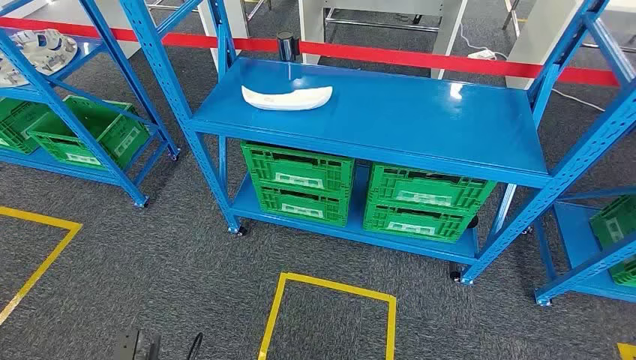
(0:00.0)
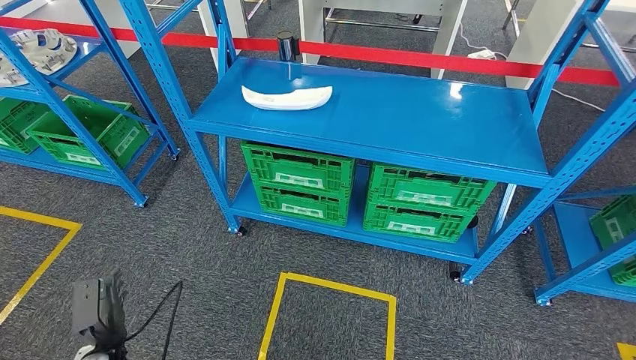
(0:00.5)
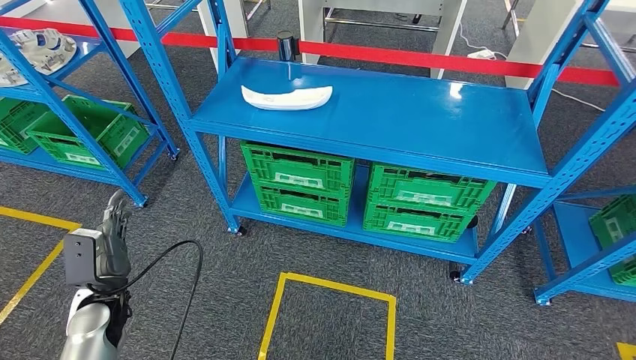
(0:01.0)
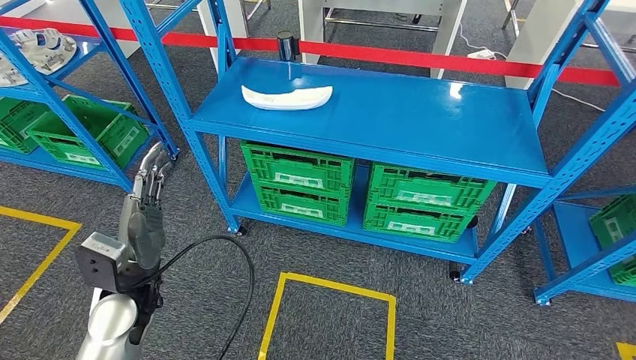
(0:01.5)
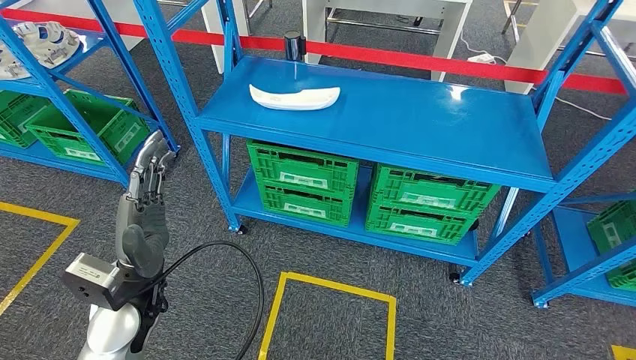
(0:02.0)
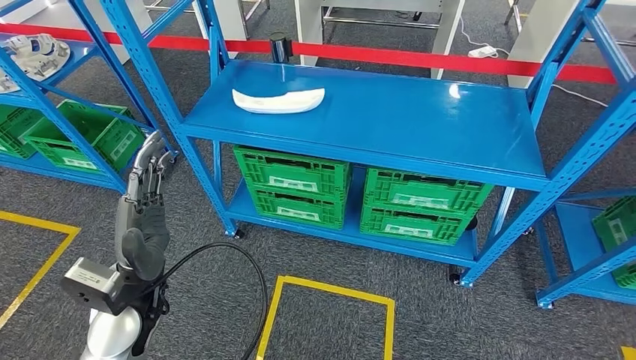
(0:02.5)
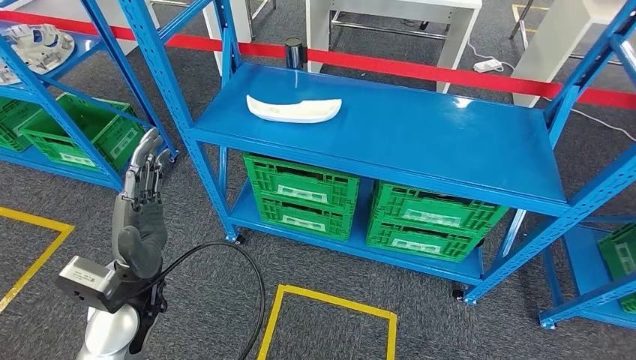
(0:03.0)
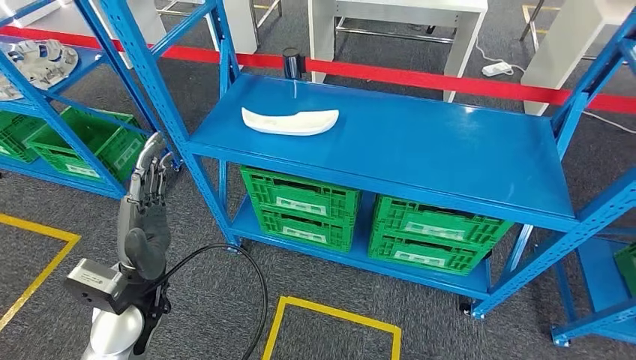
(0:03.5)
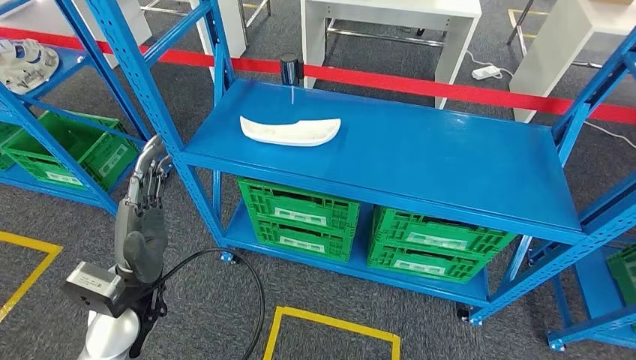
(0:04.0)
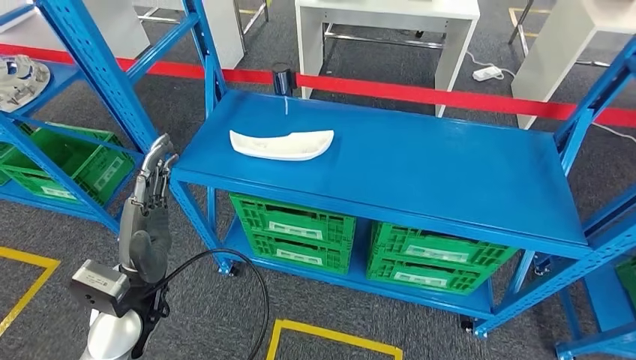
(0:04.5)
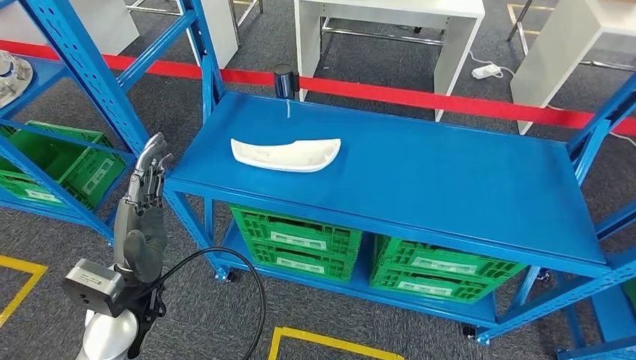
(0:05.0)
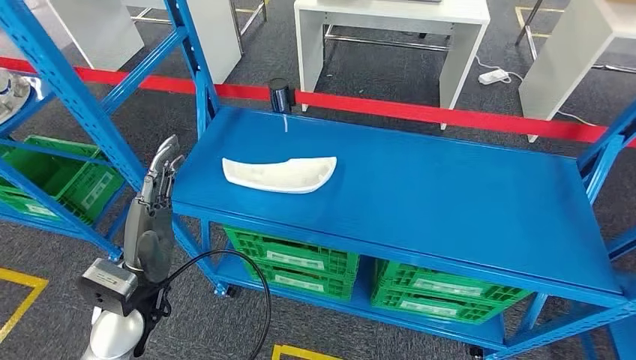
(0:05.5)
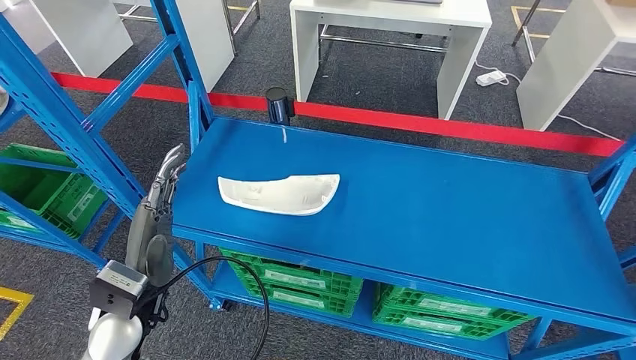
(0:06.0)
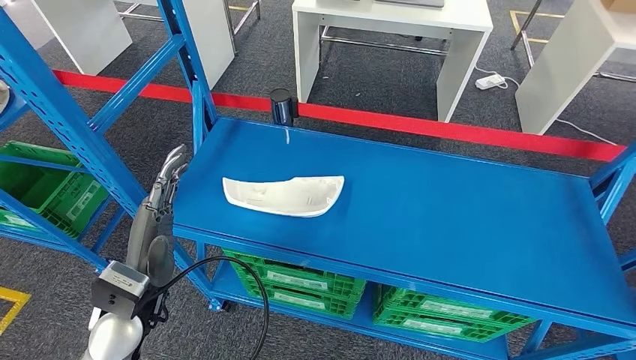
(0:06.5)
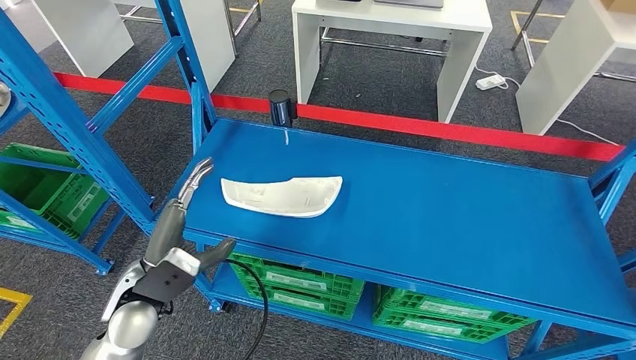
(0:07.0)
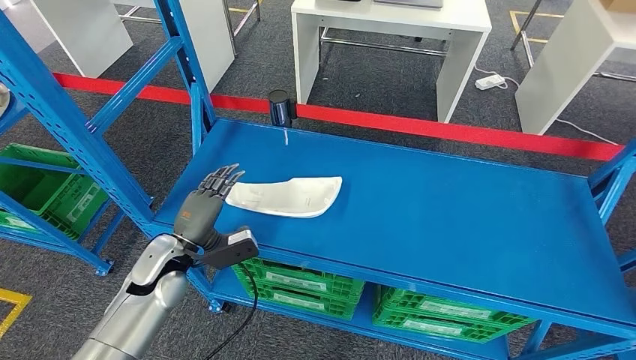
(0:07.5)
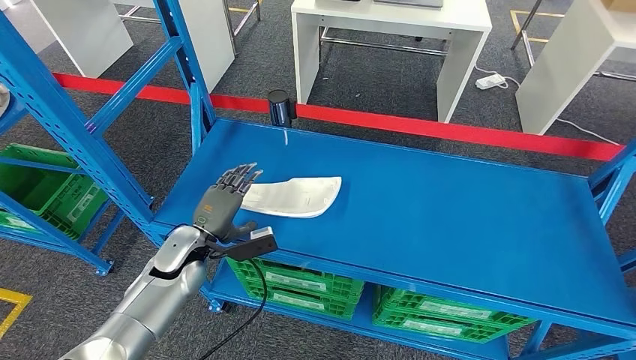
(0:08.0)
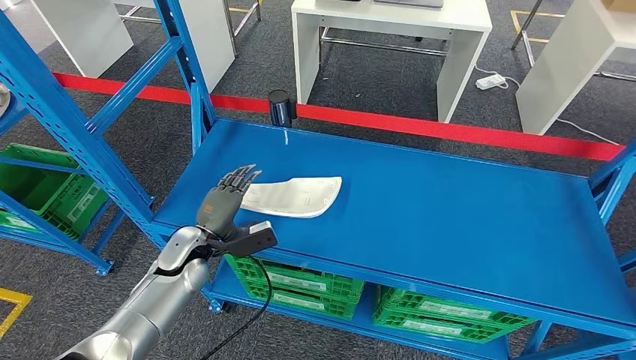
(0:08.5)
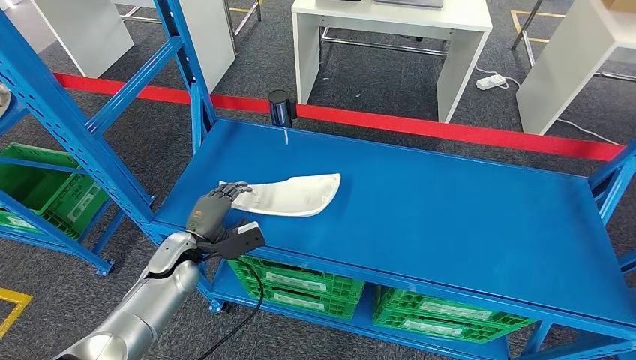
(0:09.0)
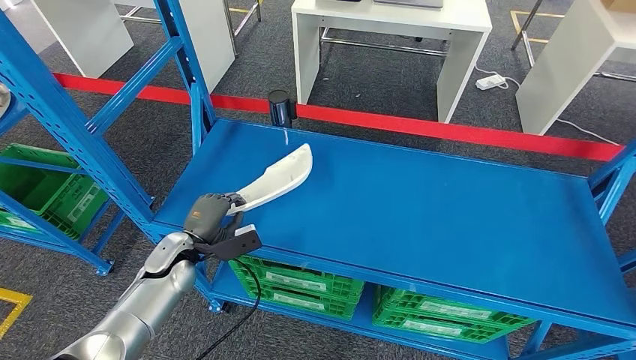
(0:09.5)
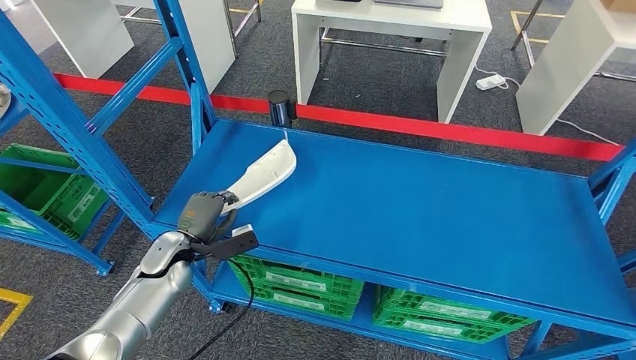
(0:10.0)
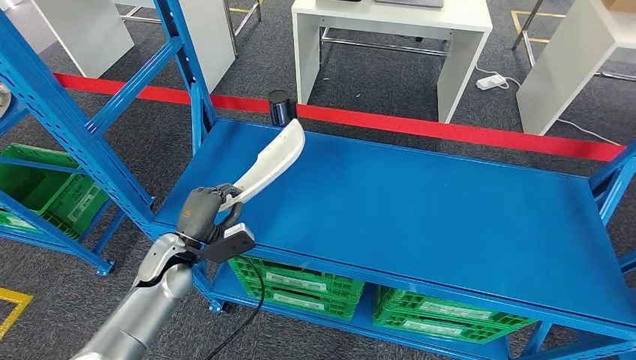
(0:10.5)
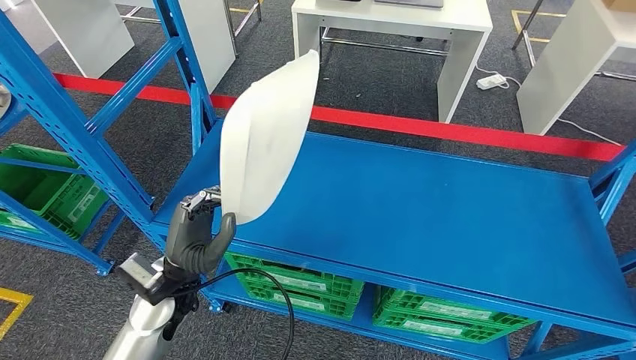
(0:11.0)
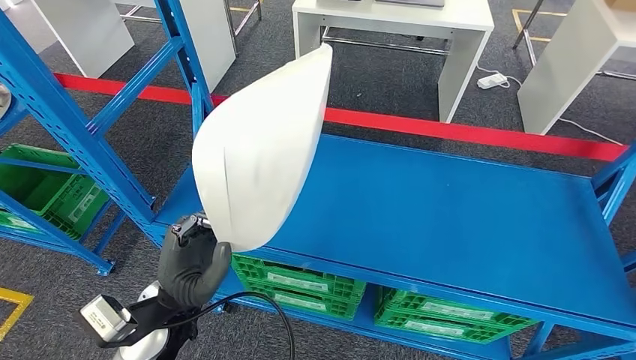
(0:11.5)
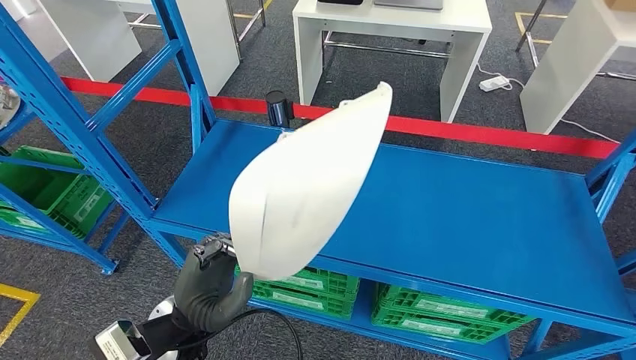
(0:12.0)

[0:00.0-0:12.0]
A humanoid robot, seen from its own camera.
Step, 0:00.0 to 0:11.0: Pick up the small parts from the shelf.
0:06.0 to 0:08.0: The left hand goes approximately 15 cm forward and downward.
0:08.0 to 0:10.0: The left hand changes place by about 5 cm.

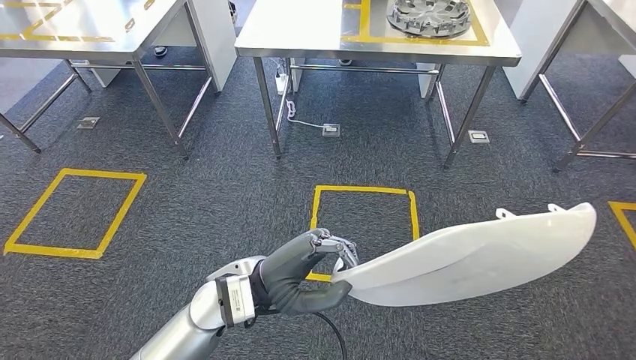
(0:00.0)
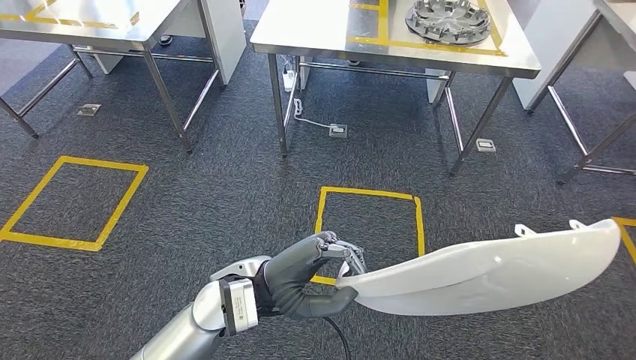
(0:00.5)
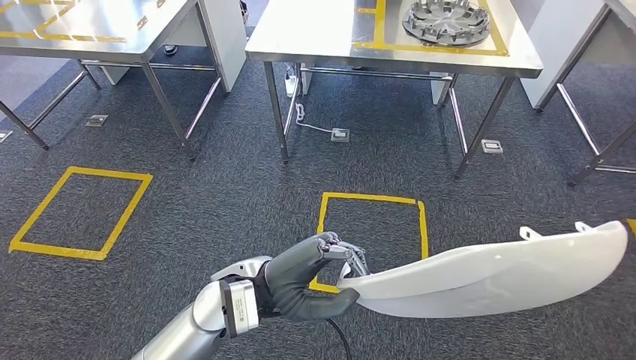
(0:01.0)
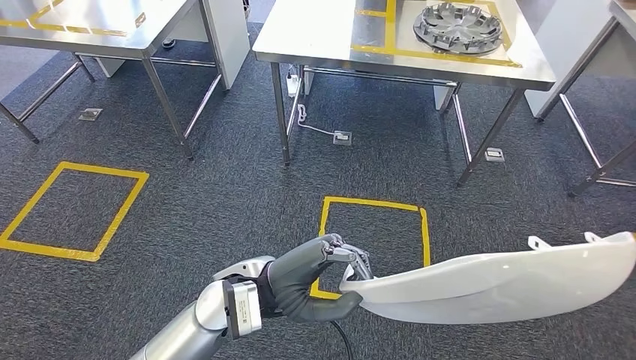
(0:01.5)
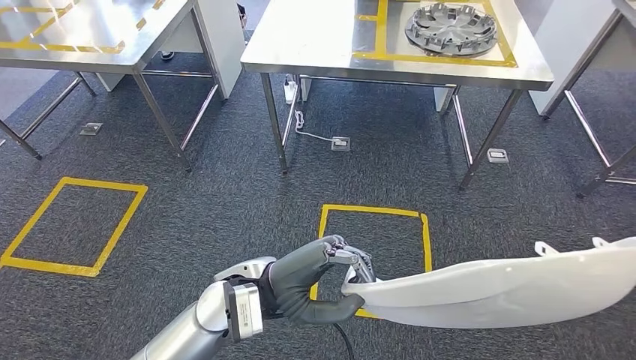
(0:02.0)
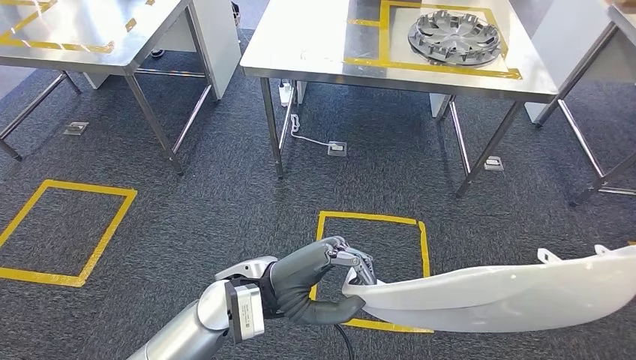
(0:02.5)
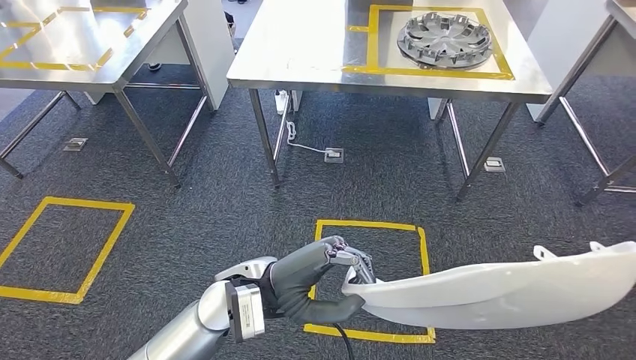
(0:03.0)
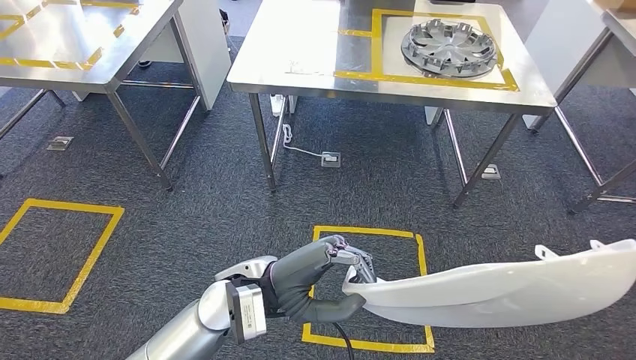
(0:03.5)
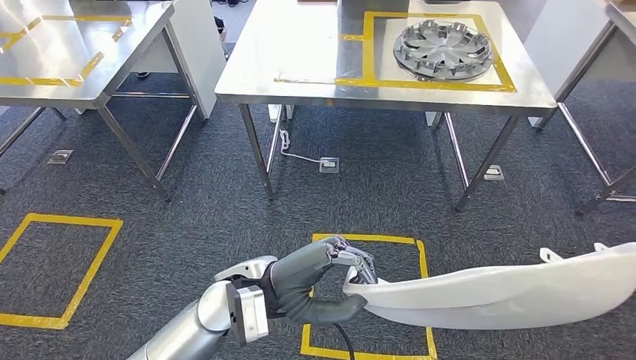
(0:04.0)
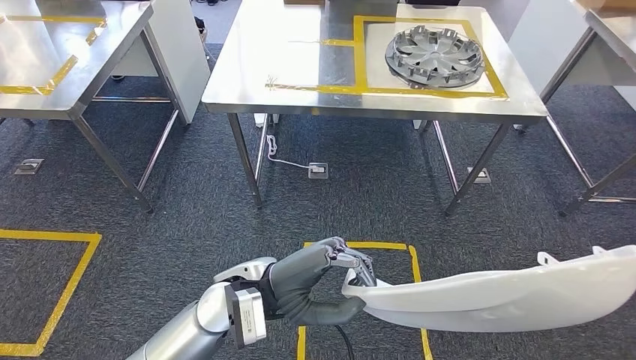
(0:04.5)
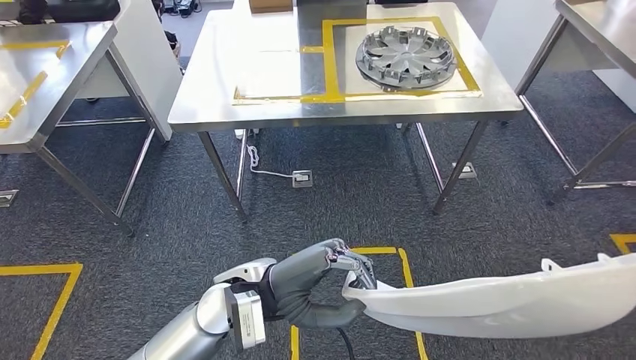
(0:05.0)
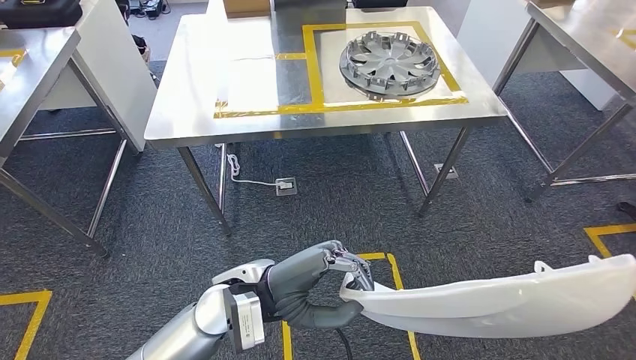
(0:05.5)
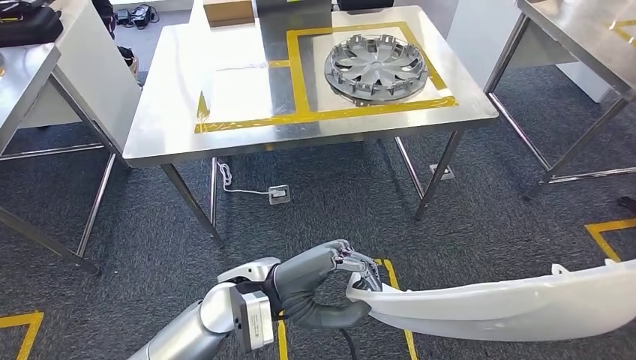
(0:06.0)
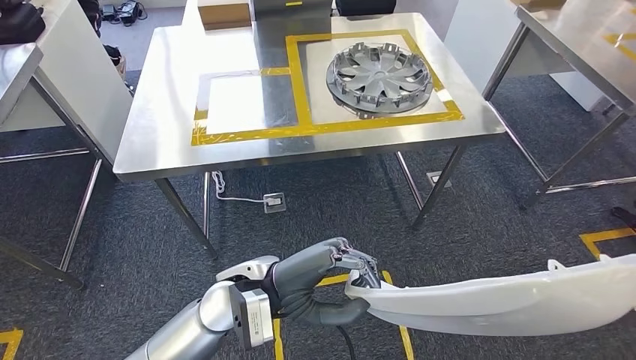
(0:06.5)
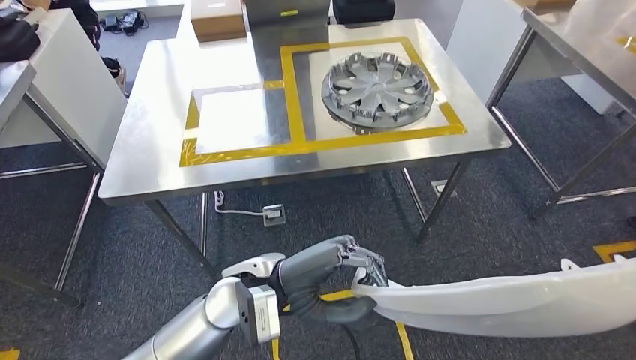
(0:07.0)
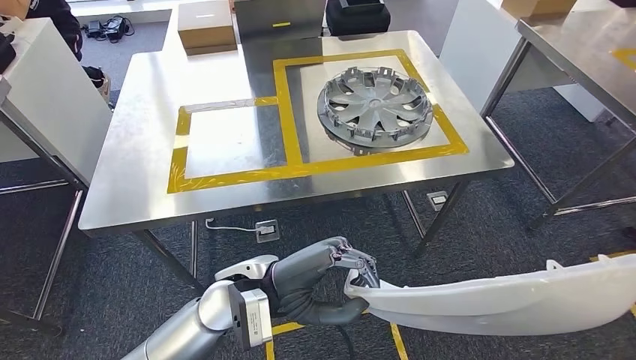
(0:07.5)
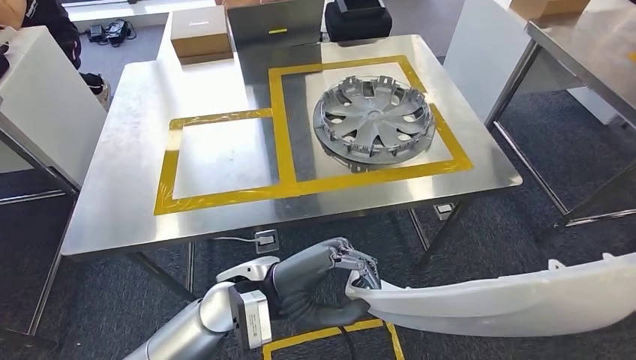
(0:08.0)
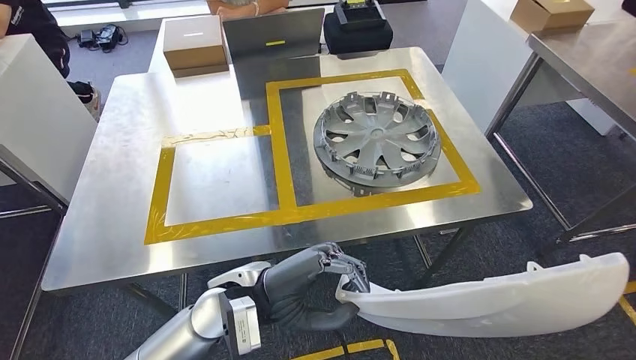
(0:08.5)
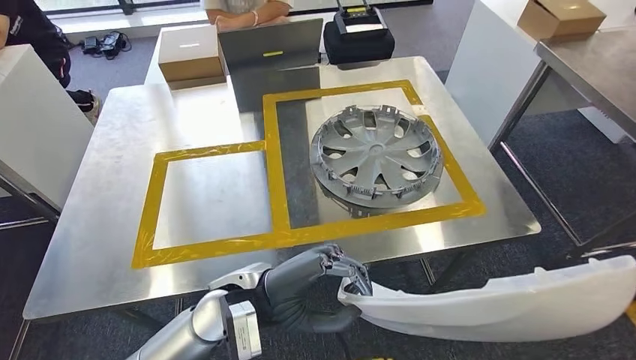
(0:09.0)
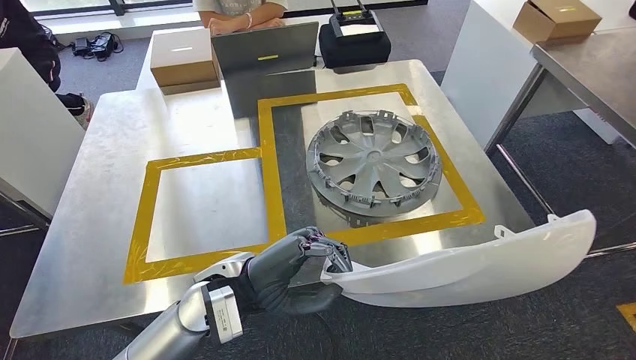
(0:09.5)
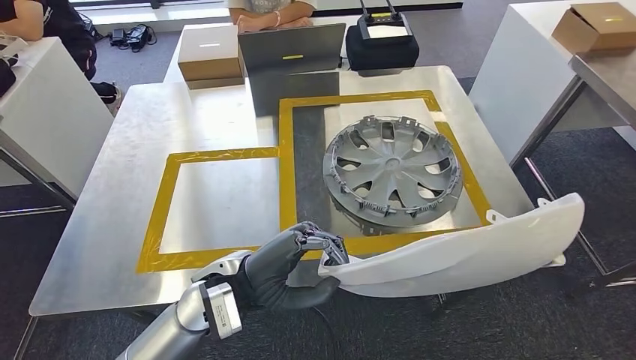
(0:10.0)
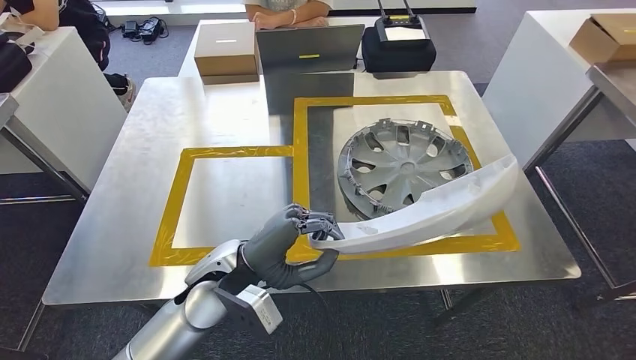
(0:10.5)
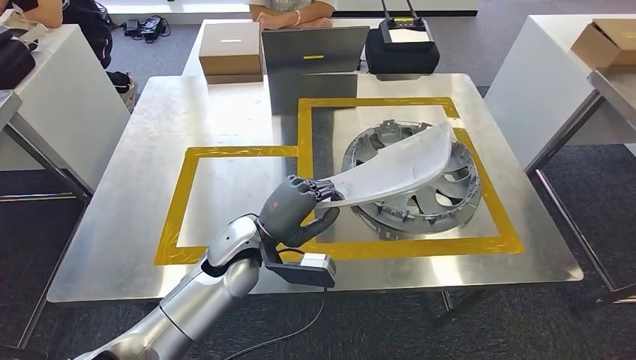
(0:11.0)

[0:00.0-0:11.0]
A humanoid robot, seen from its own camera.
Step, 0:00.0 to 0:08.5: Move the small parts to the workbench.
